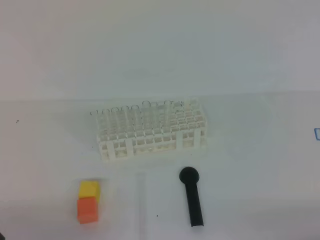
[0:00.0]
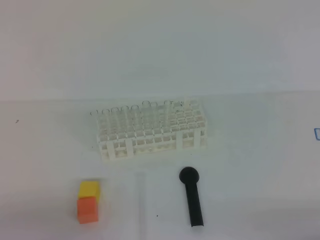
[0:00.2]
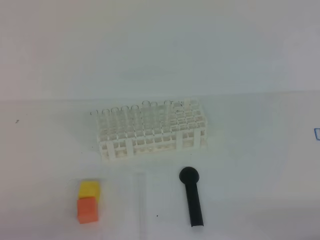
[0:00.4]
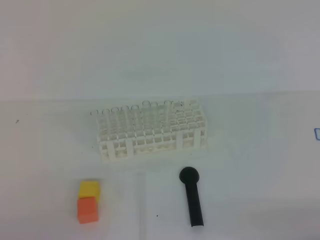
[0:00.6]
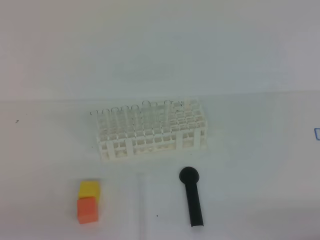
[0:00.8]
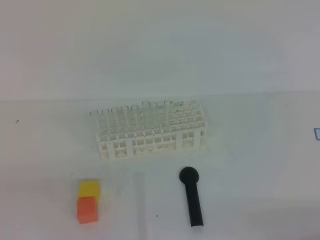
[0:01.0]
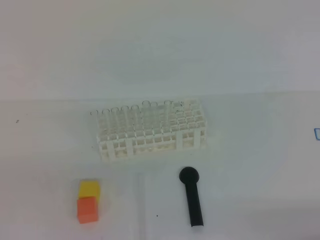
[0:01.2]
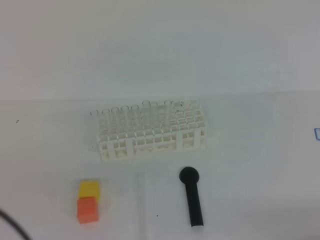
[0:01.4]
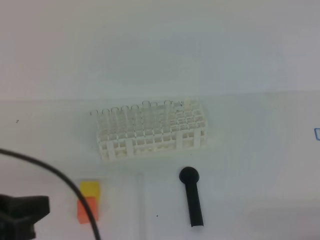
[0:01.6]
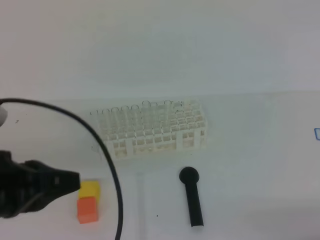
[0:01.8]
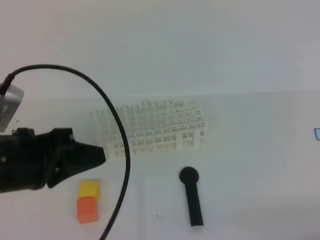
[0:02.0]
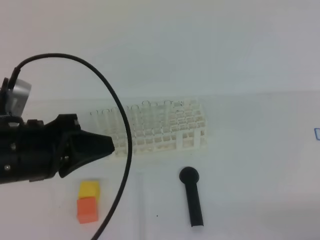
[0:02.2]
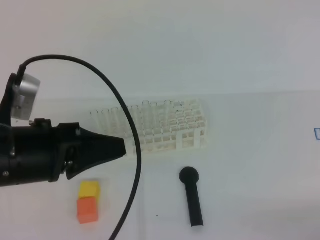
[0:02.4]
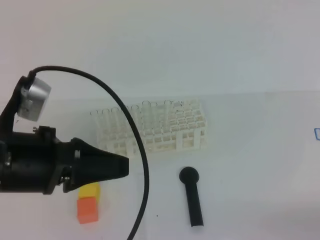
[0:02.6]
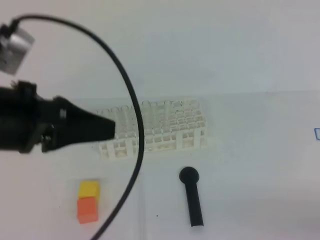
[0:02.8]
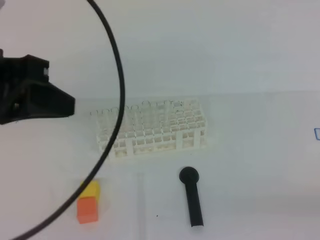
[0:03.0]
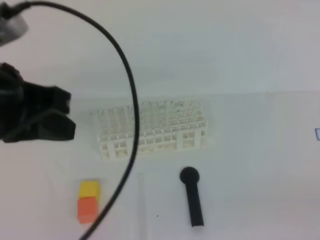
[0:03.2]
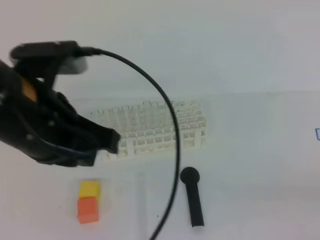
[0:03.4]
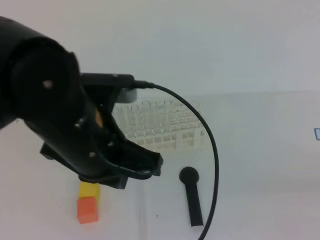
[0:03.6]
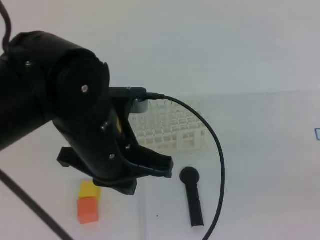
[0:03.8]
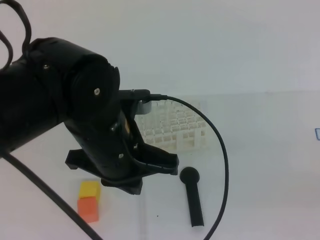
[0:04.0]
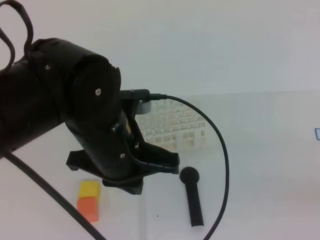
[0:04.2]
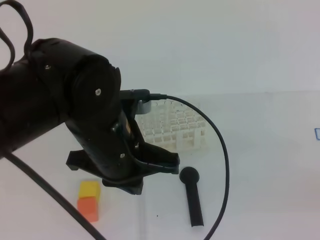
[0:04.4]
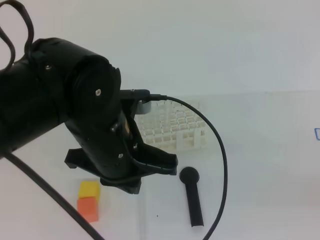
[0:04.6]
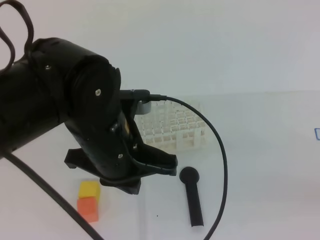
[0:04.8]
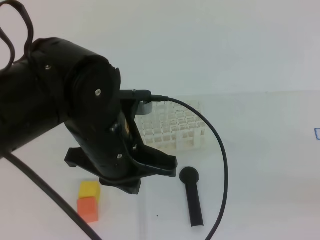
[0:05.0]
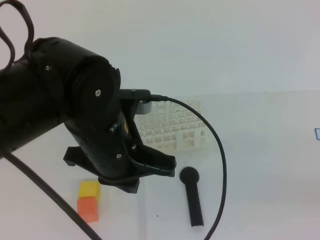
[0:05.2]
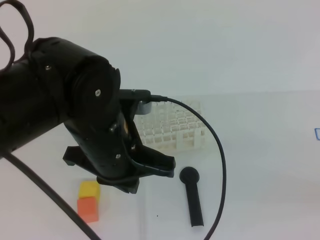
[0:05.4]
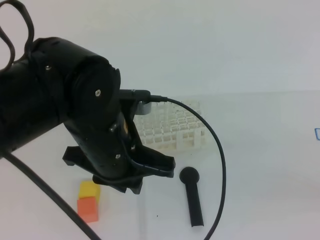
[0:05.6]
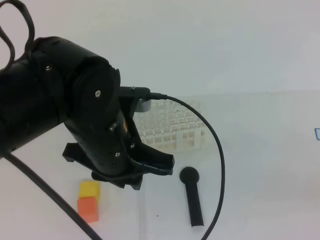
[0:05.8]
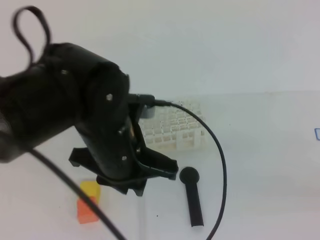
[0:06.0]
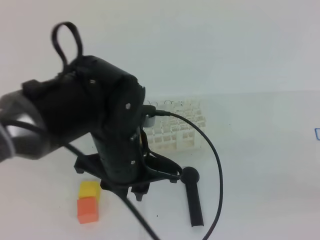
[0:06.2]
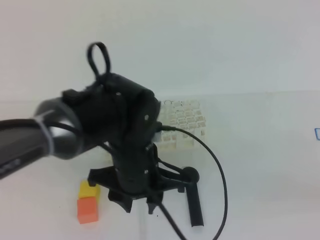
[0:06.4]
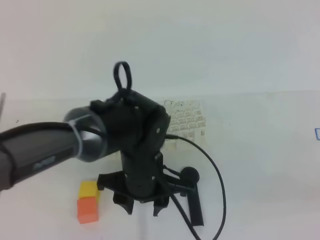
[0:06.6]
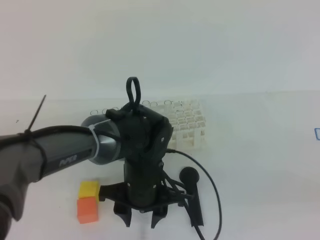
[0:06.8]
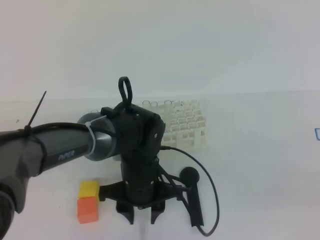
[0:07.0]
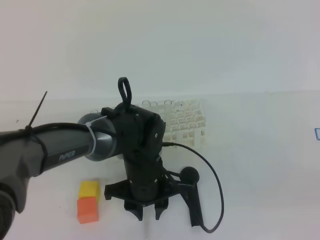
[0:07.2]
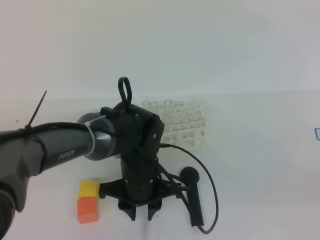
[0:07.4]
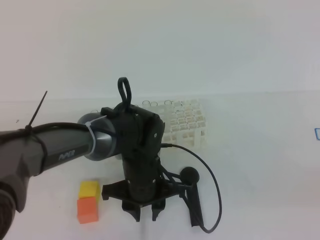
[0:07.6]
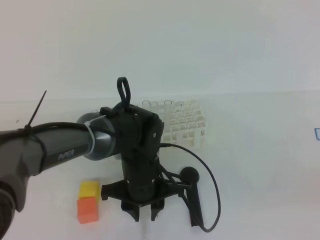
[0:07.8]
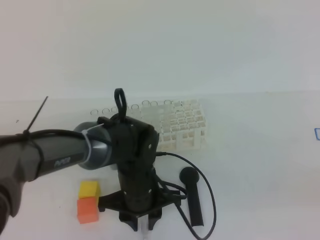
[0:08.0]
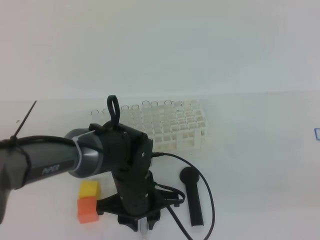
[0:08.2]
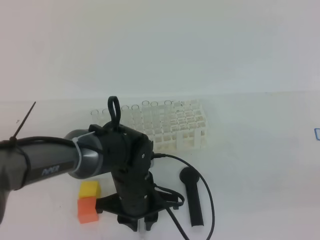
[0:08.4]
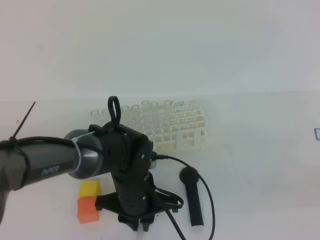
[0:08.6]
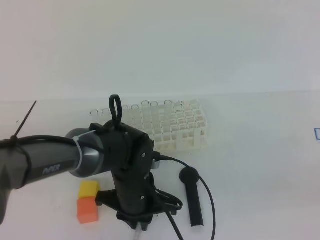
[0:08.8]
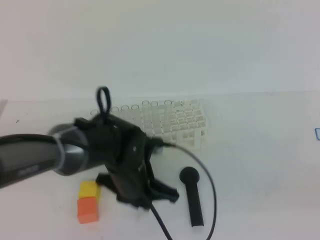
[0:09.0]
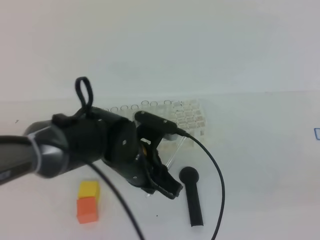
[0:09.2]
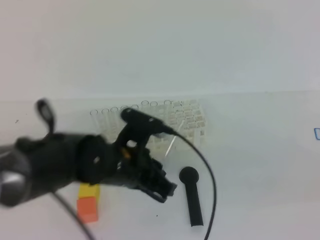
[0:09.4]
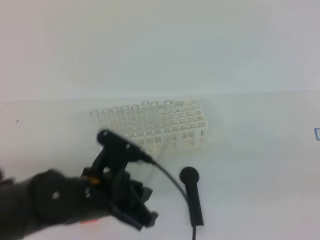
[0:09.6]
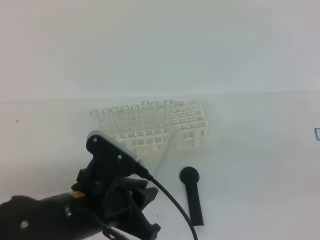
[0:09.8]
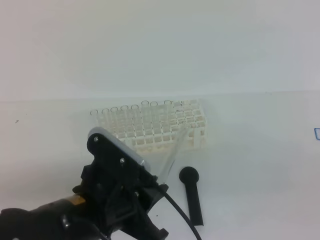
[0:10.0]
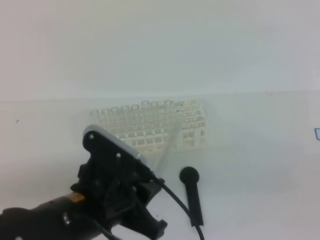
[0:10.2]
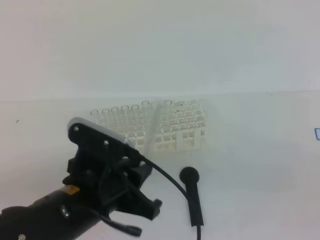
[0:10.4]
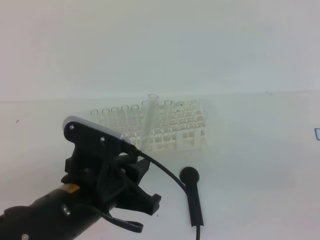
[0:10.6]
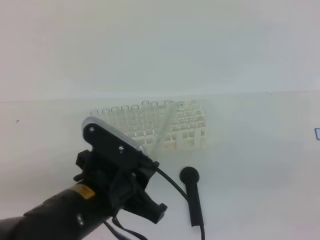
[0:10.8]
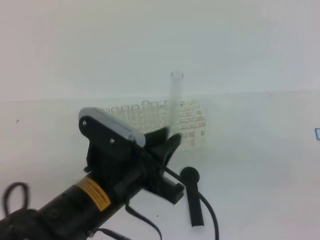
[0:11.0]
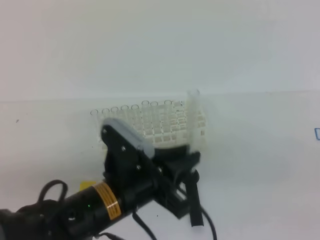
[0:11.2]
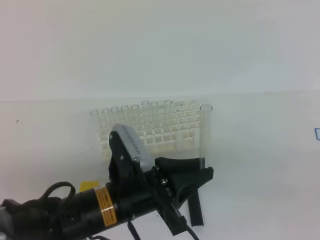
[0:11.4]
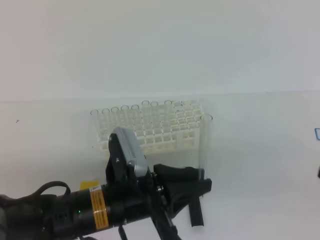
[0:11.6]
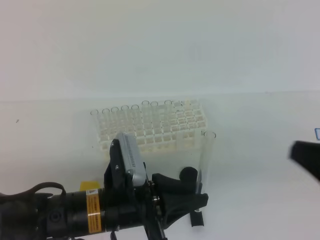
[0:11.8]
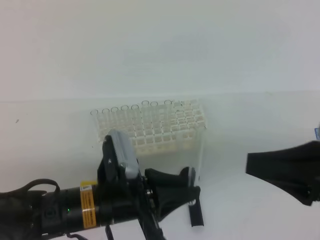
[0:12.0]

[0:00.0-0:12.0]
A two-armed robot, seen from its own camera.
0:00.0 to 0:01.6: The left gripper travels upward by approximately 15 cm.
0:01.6 to 0:03.0: The left gripper is displaced forward and upward by approximately 10 cm.
0:03.0 to 0:04.4: The right gripper travels upward by about 10 cm. Meanwhile the left gripper heads to the right and downward, covering about 15 cm.
0:04.4 to 0:06.0: The left gripper opens its fingers.
0:06.0 to 0:07.6: The left gripper travels downward and forward by approximately 15 cm.
0:07.6 to 0:09.0: The left gripper closes up.
0:09.0 to 0:10.4: The left gripper heads backward, upward and to the left, covering approximately 15 cm.
0:10.4 to 0:12.0: The right gripper moves to the left and forward, about 10 cm.

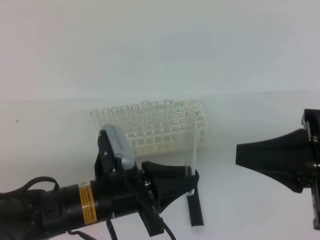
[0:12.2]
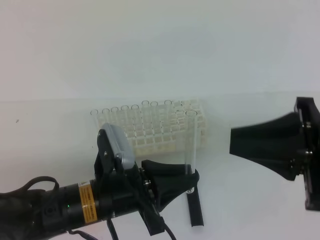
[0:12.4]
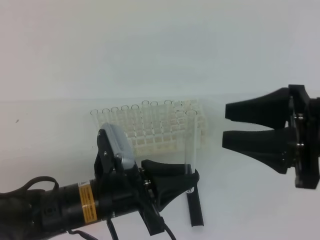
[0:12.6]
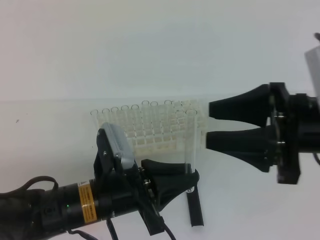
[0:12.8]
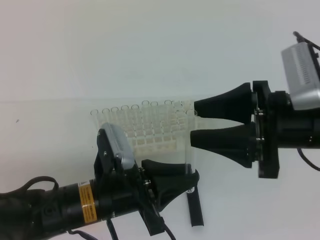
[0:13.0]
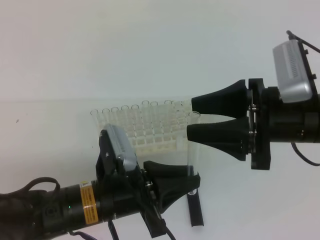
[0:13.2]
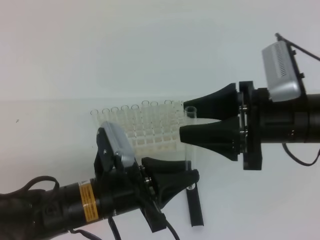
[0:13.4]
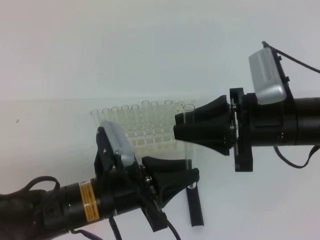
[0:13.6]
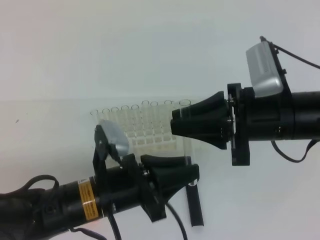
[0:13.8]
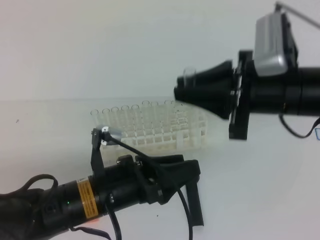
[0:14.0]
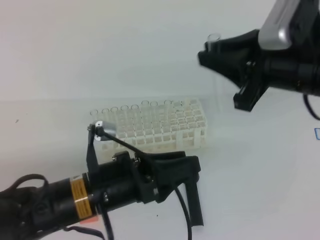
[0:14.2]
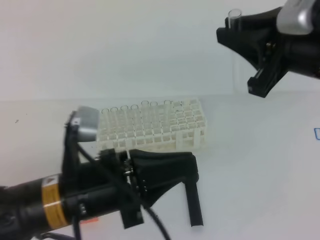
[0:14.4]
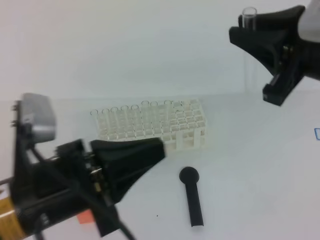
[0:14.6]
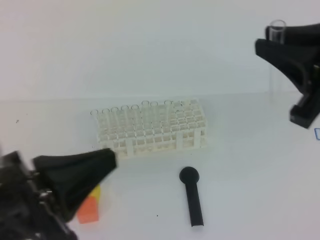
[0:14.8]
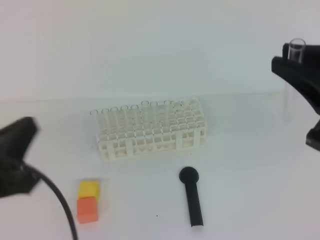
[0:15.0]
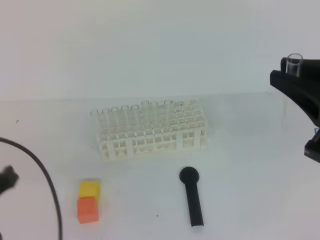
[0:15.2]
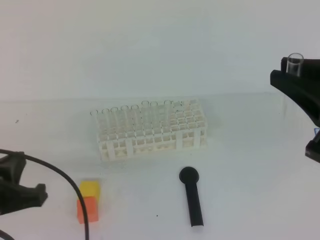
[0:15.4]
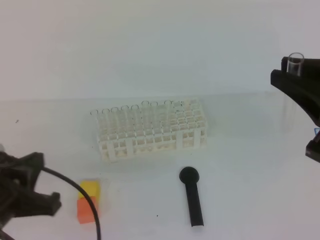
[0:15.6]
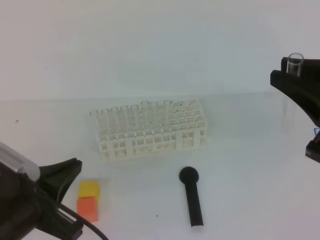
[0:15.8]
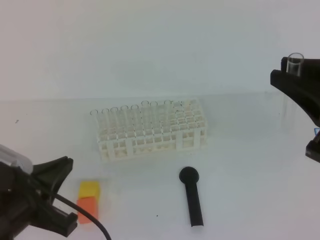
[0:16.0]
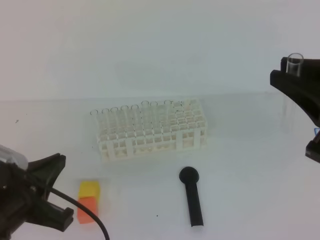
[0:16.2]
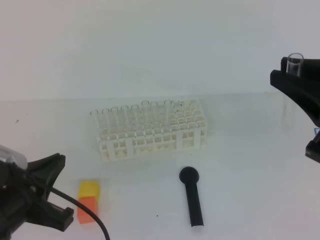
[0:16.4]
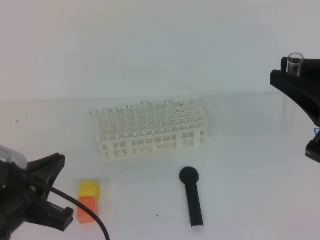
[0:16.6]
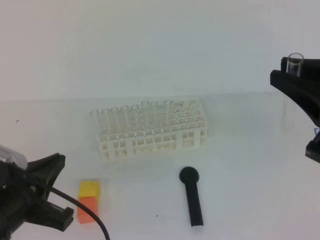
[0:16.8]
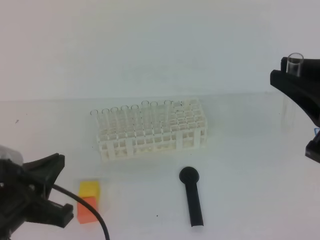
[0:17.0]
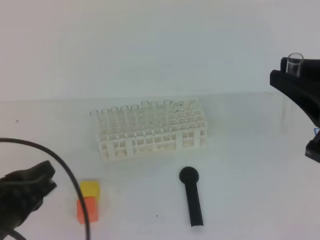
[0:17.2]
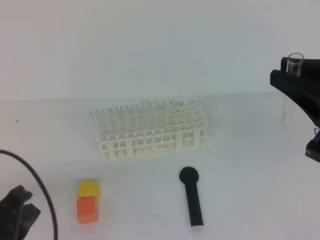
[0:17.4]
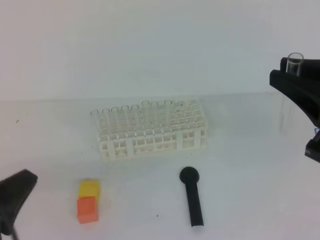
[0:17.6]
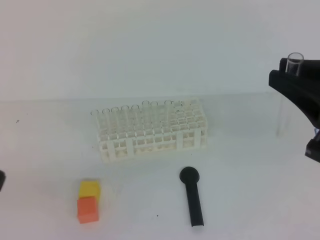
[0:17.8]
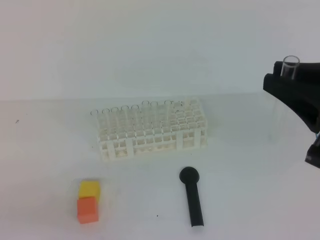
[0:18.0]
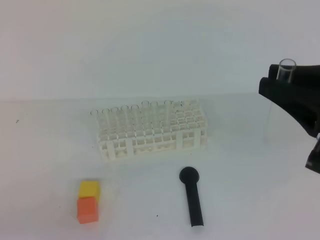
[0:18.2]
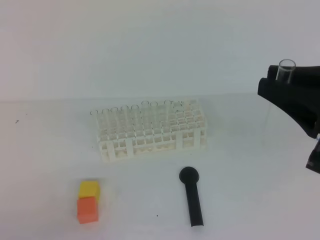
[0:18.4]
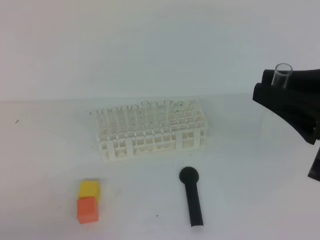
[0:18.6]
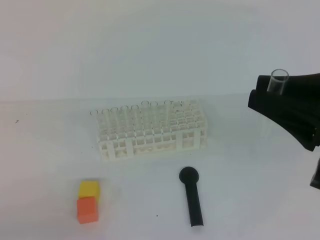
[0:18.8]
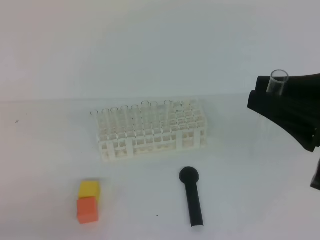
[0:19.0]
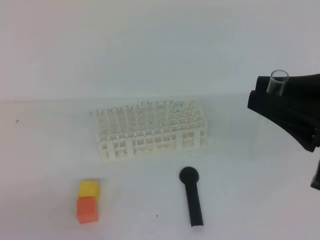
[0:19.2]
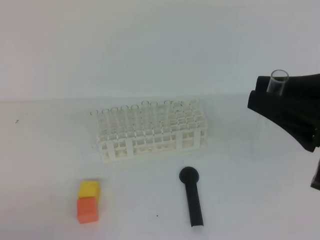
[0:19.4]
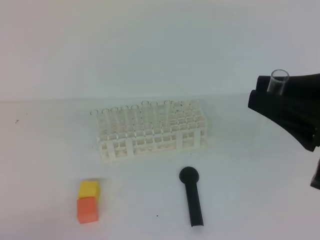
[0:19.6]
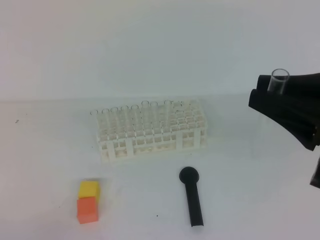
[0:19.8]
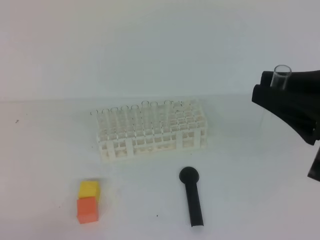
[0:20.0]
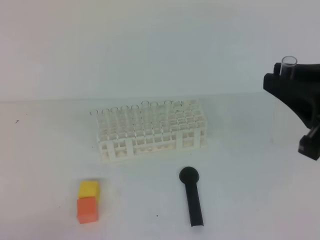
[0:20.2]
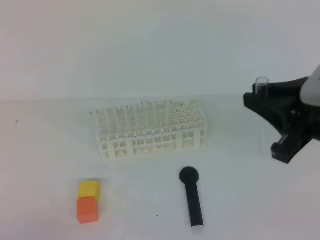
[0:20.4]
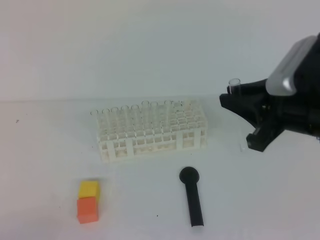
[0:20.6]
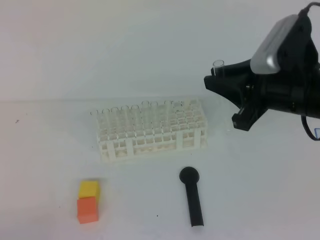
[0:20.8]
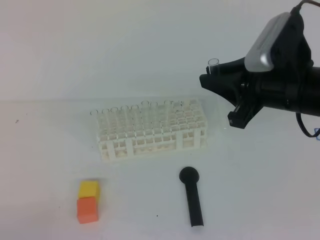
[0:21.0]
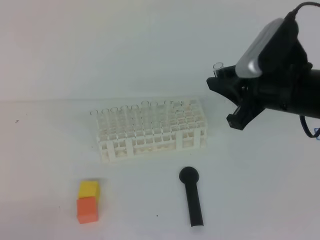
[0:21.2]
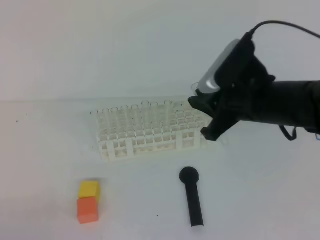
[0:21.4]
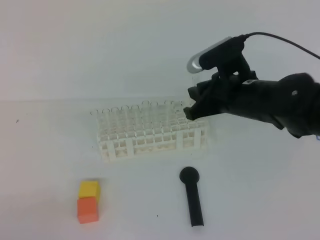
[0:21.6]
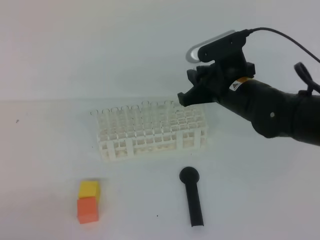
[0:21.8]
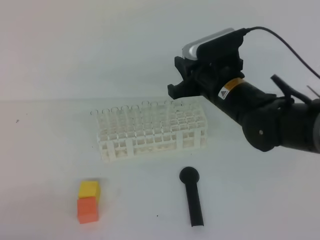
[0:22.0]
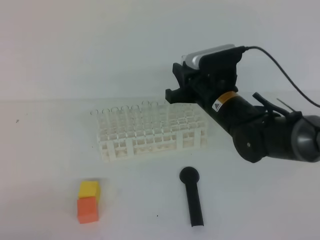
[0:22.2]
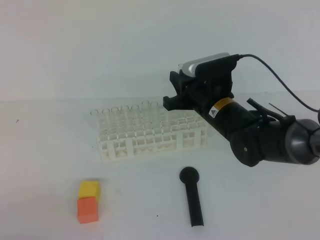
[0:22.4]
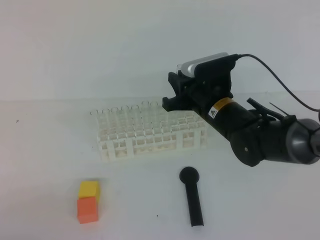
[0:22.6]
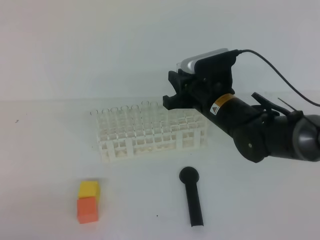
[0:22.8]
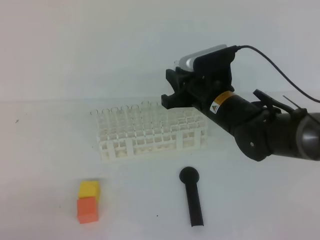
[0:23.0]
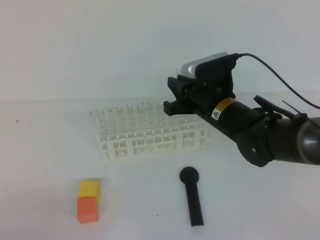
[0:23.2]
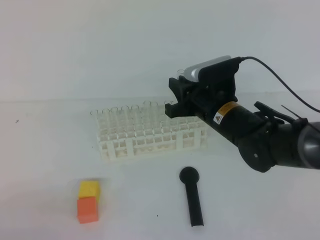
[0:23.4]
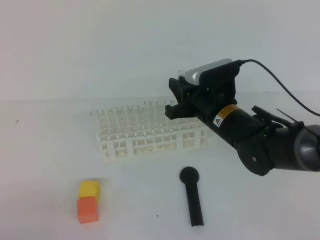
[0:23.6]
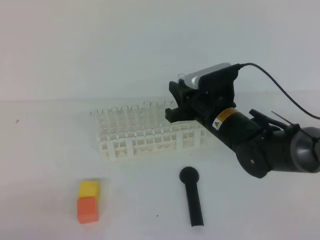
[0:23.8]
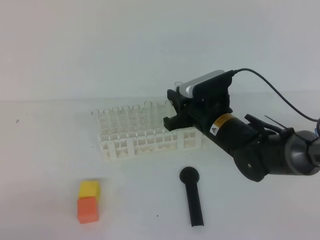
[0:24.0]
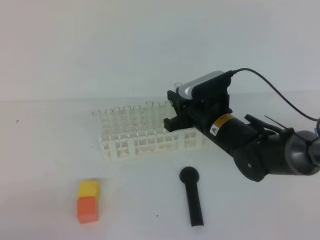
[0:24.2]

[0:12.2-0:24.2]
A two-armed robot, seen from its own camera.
0:12.2 to 0:13.8: The right gripper is displaced forward and to the left by about 10 cm, and opens, then closes again; the left gripper opens its fingers.
0:13.8 to 0:15.2: The right gripper moves to the right, backward and upward, roughly 15 cm; the left gripper heads to the left, upward and backward, covering roughly 15 cm, and closes its fingers.
0:16.6 to 0:18.2: The left gripper is displaced backward and to the left by roughly 10 cm.
0:19.8 to 0:21.2: The right gripper travels forward and downward by roughly 15 cm.
0:21.2 to 0:22.6: The right gripper heads downward, forward and to the left, covering roughly 15 cm.
0:22.6 to 0:24.2: The grippers make only small movements.
